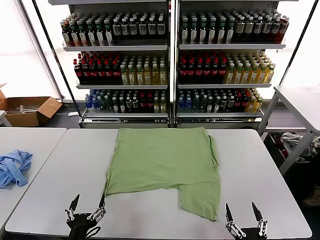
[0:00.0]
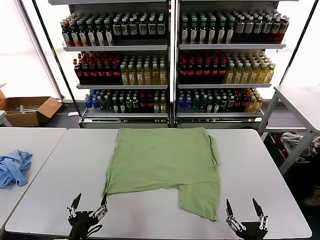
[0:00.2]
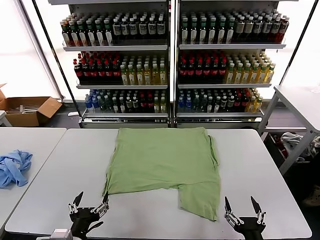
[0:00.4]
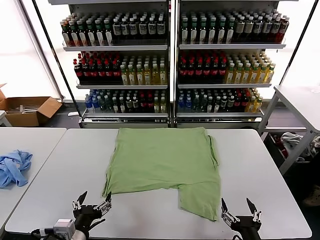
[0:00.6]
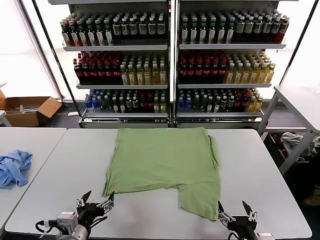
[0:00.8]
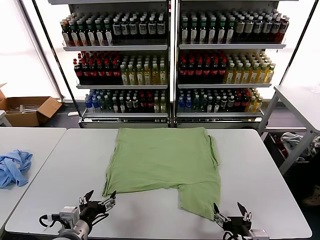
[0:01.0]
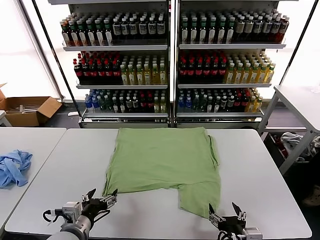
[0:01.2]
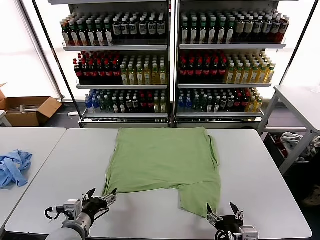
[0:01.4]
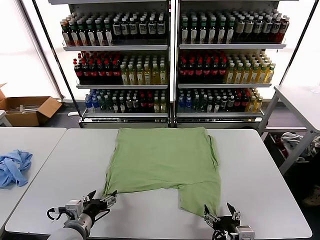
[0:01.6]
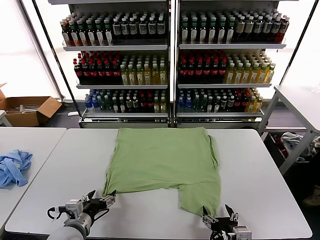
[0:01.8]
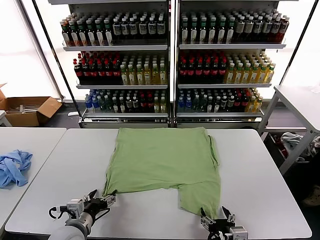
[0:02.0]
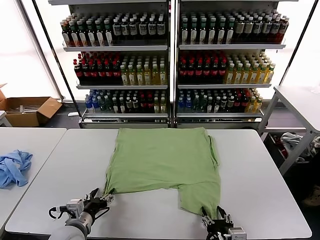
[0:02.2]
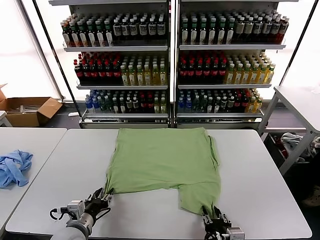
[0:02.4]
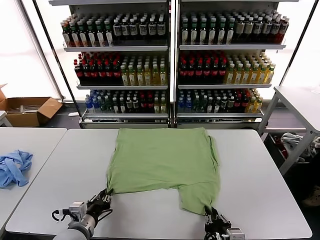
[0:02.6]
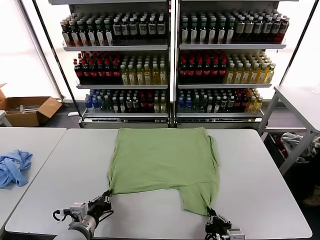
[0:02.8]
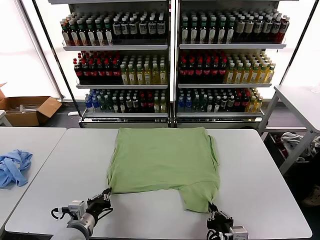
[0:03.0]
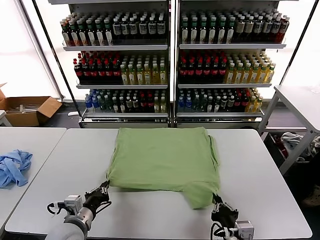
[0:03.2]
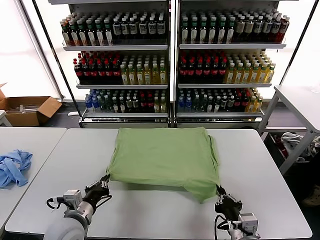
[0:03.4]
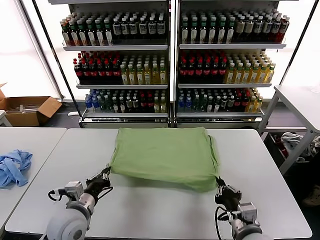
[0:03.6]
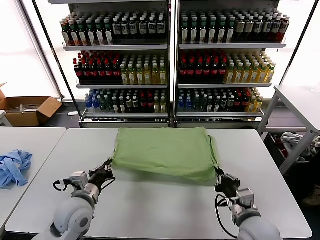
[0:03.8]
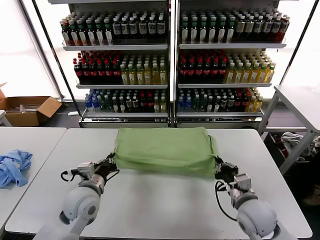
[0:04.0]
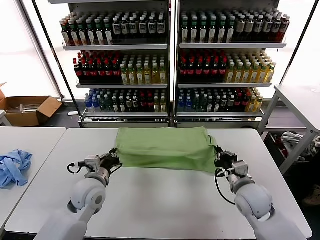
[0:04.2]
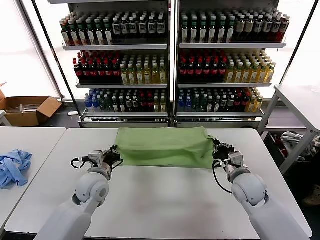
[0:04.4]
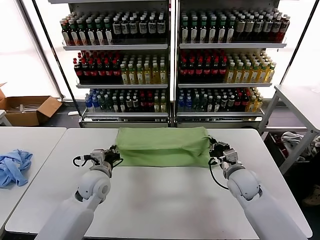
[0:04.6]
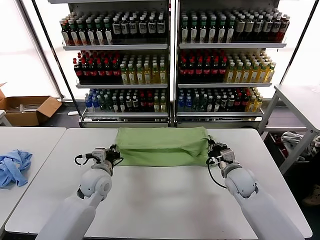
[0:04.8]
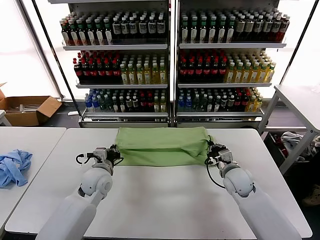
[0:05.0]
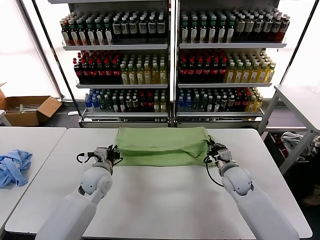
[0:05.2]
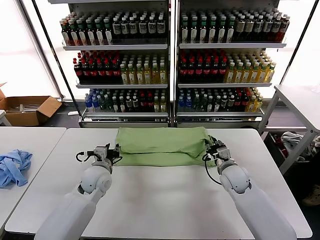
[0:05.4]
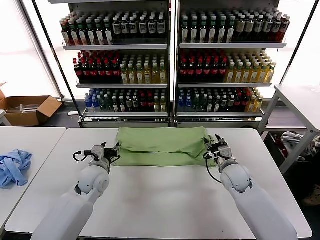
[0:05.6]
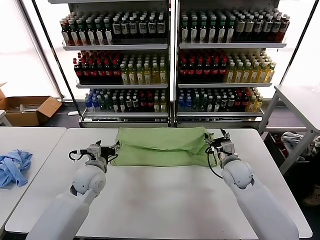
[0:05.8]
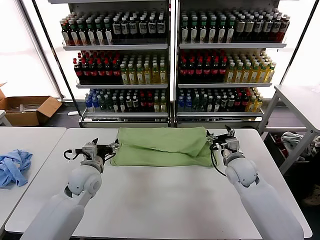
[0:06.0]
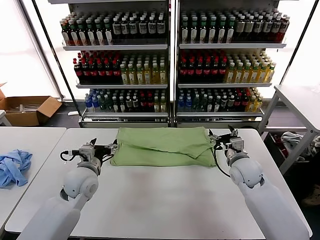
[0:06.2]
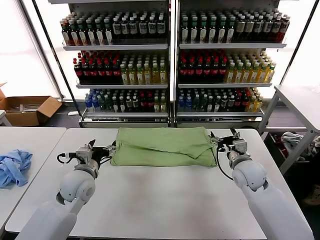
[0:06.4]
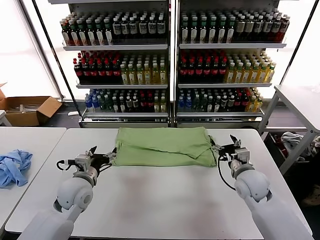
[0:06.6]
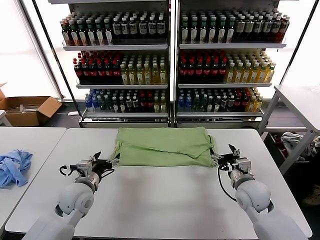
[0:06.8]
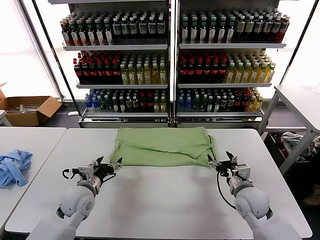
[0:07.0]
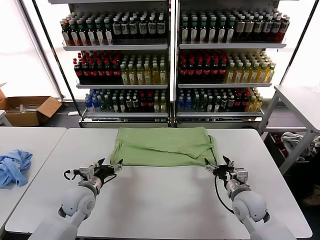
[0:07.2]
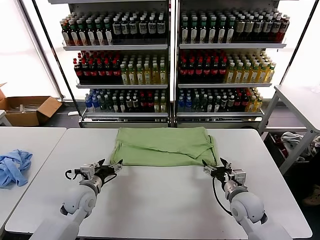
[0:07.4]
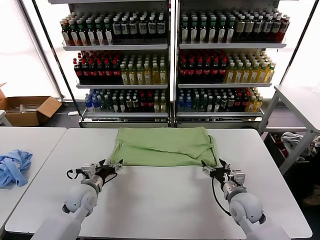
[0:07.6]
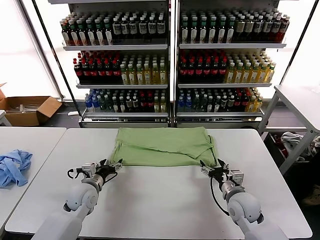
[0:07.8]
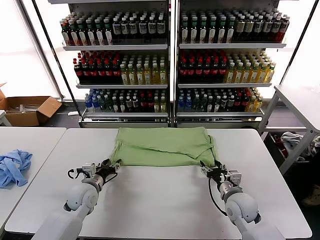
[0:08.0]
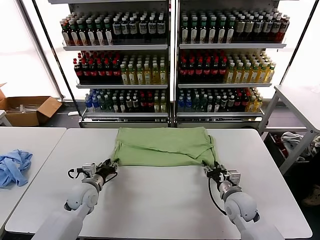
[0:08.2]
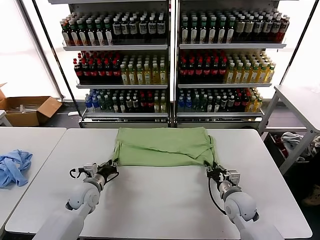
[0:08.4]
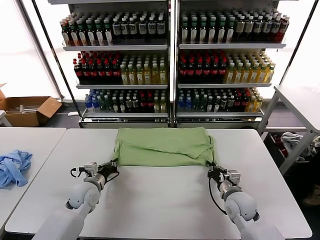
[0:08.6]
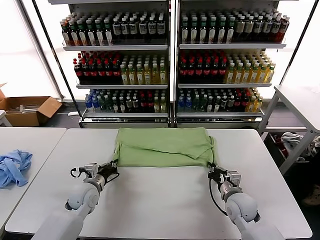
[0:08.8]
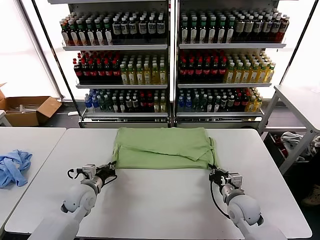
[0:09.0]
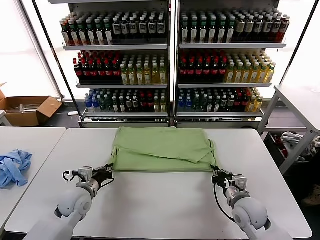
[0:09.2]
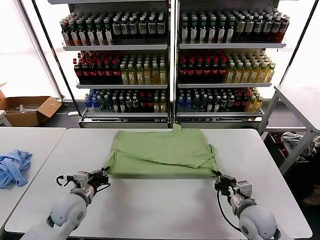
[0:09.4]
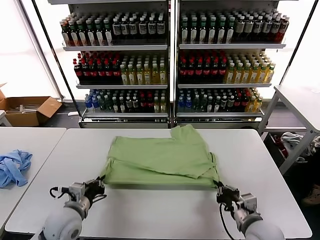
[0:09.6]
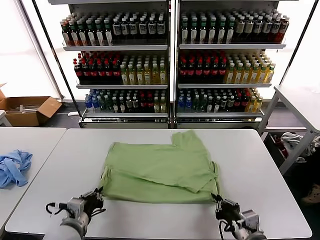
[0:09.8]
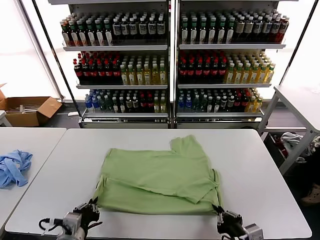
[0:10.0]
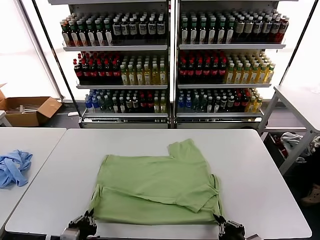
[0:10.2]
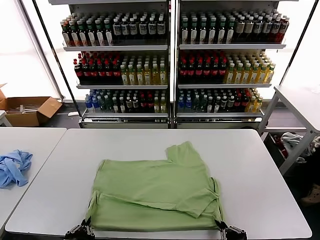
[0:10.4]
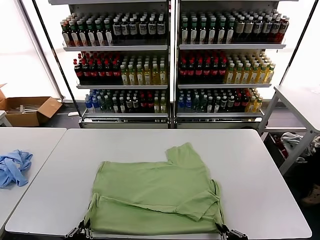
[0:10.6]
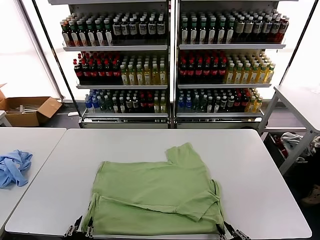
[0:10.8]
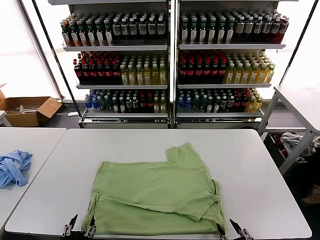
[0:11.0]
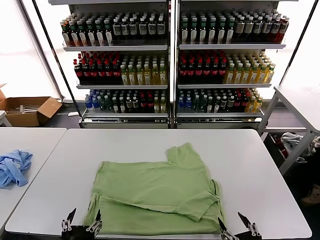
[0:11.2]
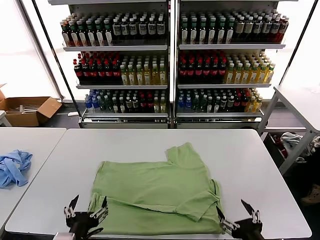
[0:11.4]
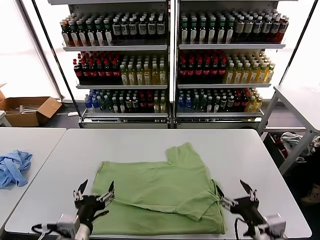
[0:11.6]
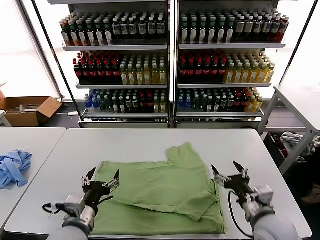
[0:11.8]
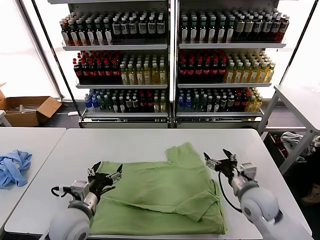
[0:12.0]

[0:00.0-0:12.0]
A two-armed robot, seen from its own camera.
Task of the whole recording: fold and organize the clothes.
Step, 0.0 to 2.8 s: use both grippers simultaneously to clamp the lower edge of the clothing fabric.
Step, 3.0 to 5.8 s: use both grippers to drag the lower edge of the fabric forward and fold it over the upper edge.
Step, 6.2 to 11.0 s: Drag the clothes downward with both gripper.
1.6 to 3.0 s: The right gripper closes, while the left gripper closes.
3.0 to 4.4 s: The right gripper shifts approximately 25 cm forward, while the left gripper goes approximately 15 cm forward.
4.4 to 6.0 s: The left gripper opens up; the right gripper opens its fingers.
6.0 to 7.6 s: The right gripper goes approximately 10 cm backward and downward; the left gripper goes approximately 10 cm downward.
7.6 to 9.0 s: The left gripper closes up. Meanwhile the right gripper closes its fingers.
9.0 to 10.4 s: The two grippers go approximately 25 cm backward.
10.4 to 12.0 s: The right gripper is displaced forward by approximately 25 cm, and opens; the left gripper moves forward, approximately 15 cm, and opens.

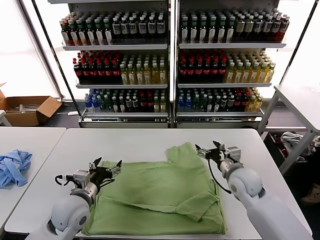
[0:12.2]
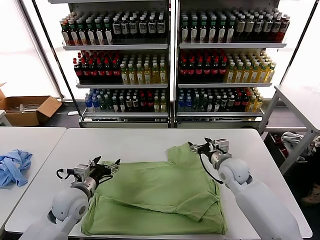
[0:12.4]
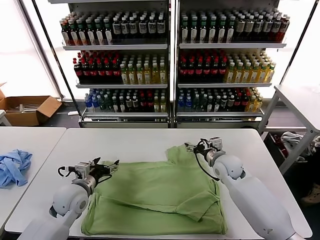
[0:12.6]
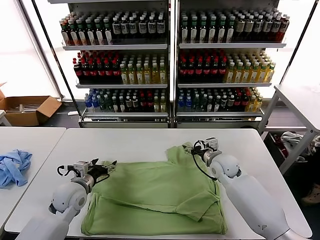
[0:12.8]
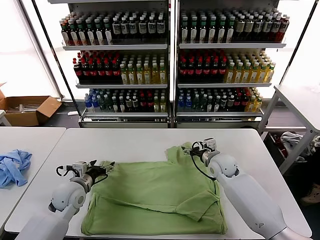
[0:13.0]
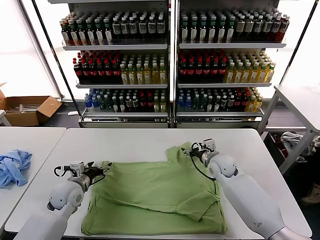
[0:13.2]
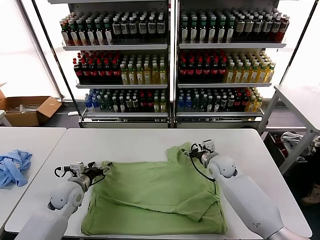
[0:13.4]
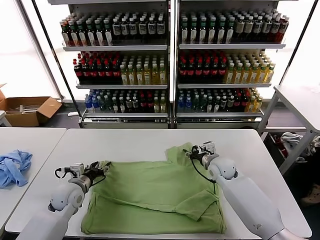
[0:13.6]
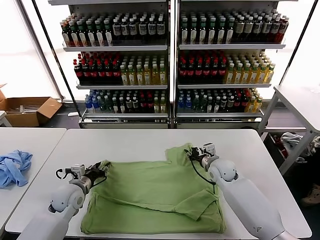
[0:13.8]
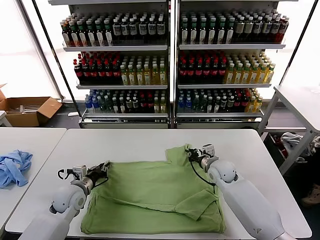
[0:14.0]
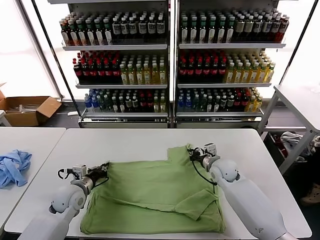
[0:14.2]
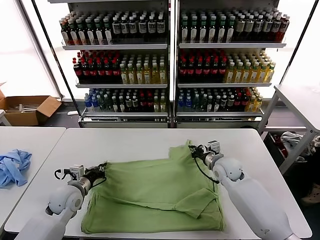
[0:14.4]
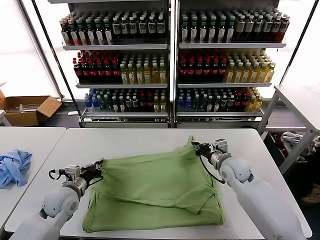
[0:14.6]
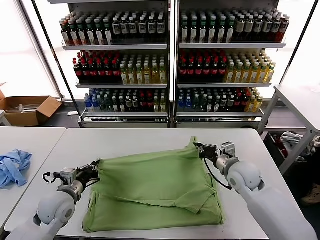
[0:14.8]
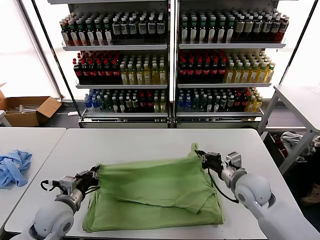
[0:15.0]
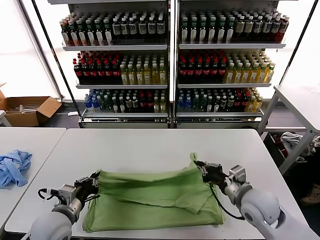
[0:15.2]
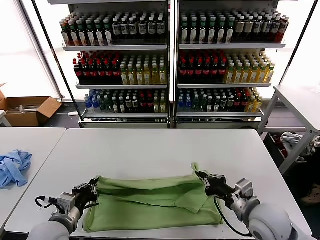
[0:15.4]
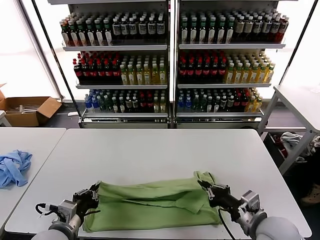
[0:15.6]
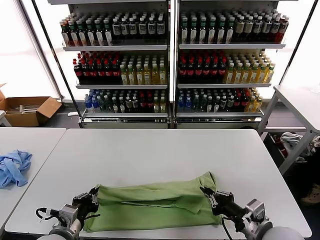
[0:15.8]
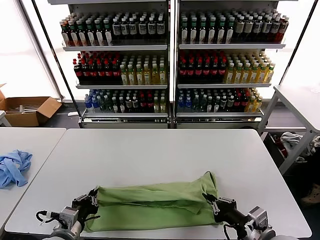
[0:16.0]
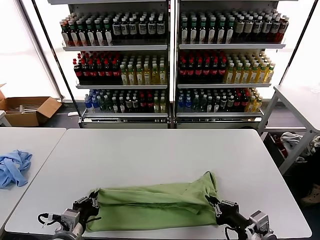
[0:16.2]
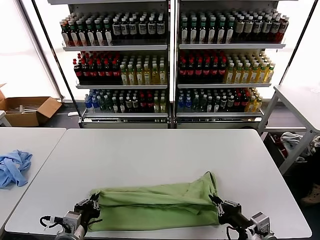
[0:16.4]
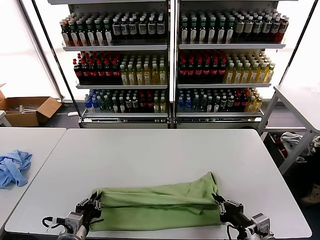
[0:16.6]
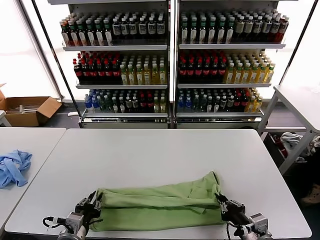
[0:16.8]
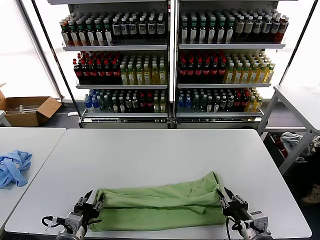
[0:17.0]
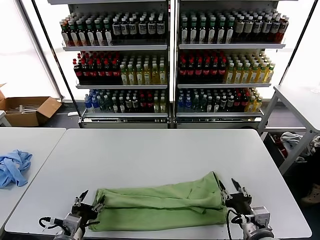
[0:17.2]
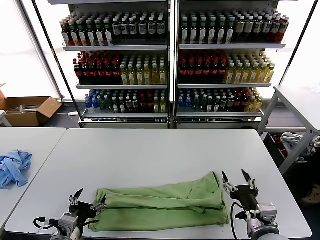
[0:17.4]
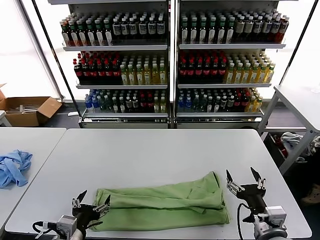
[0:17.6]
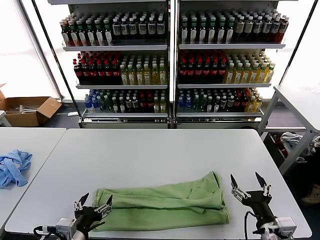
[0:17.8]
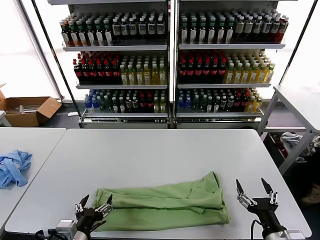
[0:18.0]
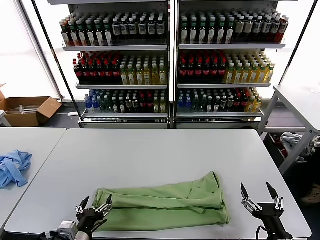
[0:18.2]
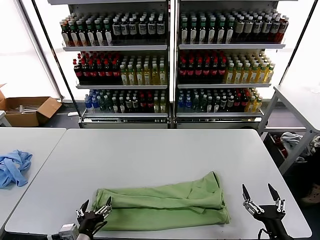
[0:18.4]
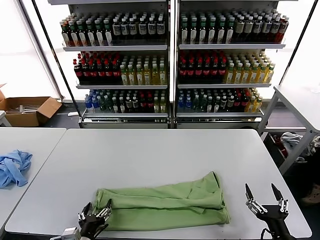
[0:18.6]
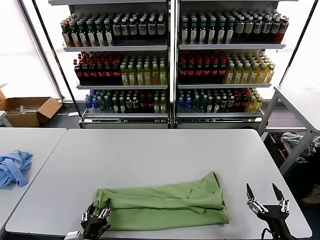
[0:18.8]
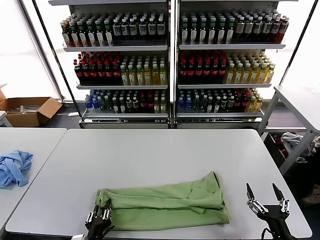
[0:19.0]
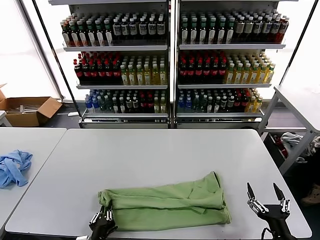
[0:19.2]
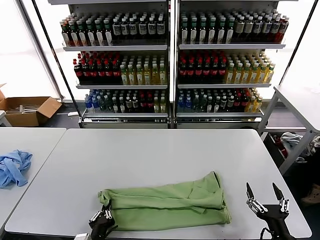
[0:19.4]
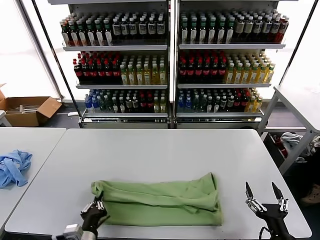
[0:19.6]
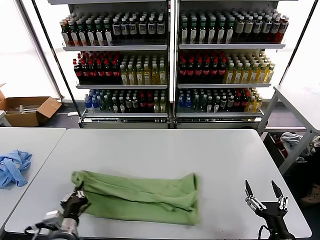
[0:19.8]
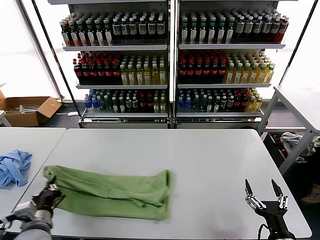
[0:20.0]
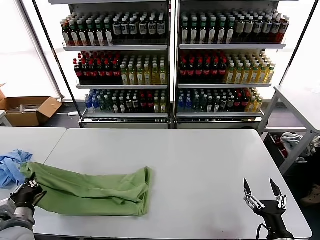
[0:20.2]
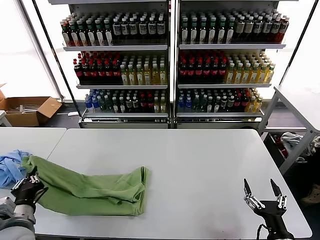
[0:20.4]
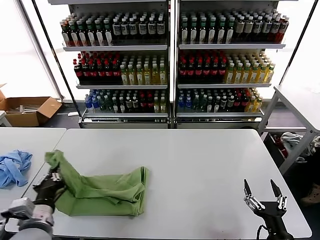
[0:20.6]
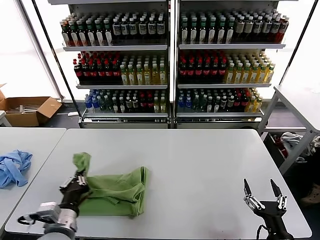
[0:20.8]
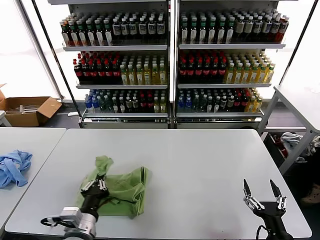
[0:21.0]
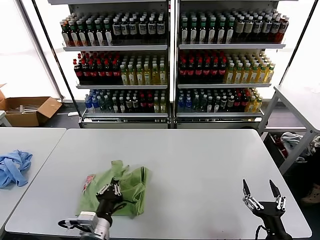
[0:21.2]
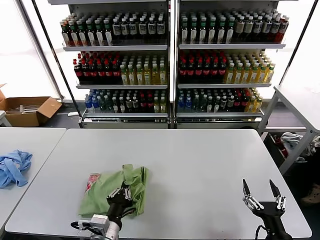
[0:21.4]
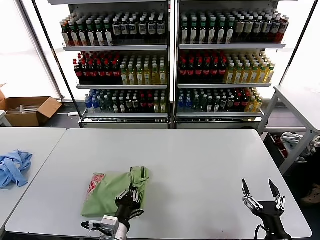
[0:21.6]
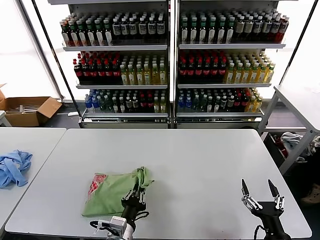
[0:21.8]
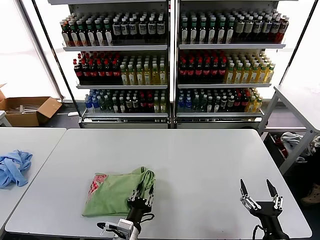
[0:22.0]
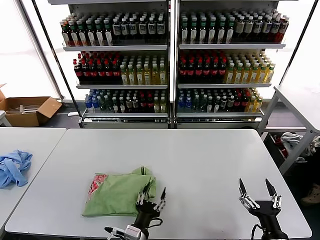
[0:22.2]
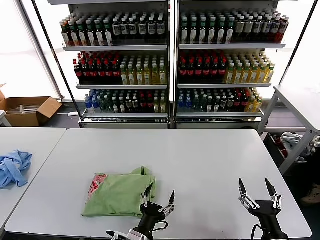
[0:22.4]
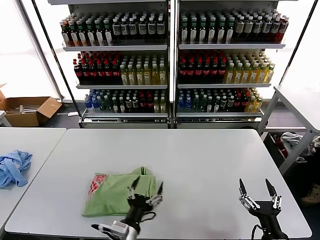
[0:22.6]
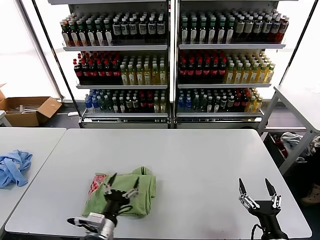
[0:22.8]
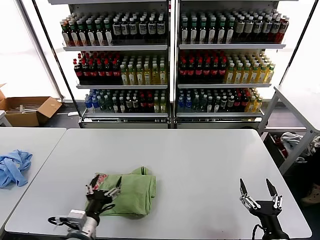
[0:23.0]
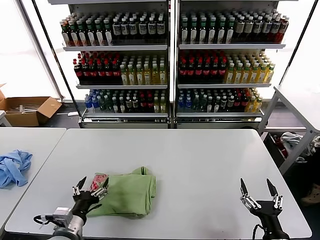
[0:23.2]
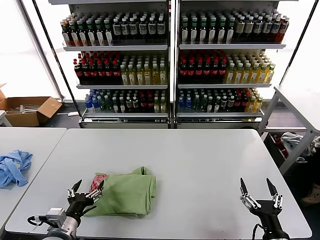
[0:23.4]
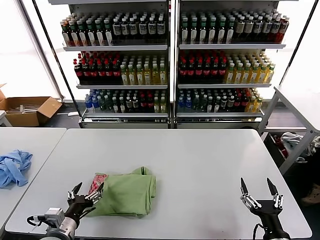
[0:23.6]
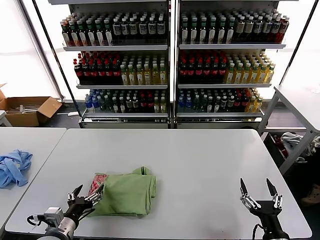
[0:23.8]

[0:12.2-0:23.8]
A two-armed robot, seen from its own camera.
Task of the whole recording: fold and organize the clothes.
Step, 12.2 to 14.0 s: use both grippers simultaneously to clamp the upper edge of the clothing fabric.
Step, 14.4 to 17.0 s: use both grippers to drag the upper edge of the fabric backward and fold it over the lower edge.
Step, 17.4 to 19.2 s: use the left gripper to clamp the left edge of the fabric.
Step, 19.4 to 22.0 s: use the left gripper to drag the left edge of the fabric to the left and folds it over the right edge.
12.2 to 13.6 s: The left gripper is displaced forward, to the left and downward by some 10 cm; the right gripper goes roughly 10 cm forward and downward, and closes.
13.6 to 15.0 s: The right gripper is displaced backward and upward by about 15 cm, and closes; the left gripper moves backward, roughly 10 cm, and closes.
15.0 to 16.6 s: The left gripper goes approximately 10 cm backward, while the right gripper goes some 15 cm backward.
16.6 to 18.0 s: The right gripper opens up. Meanwhile the left gripper opens up.
18.0 to 19.4 s: The left gripper moves downward, some 10 cm, and closes up.
19.4 to 21.0 s: The left gripper is displaced upward by roughly 10 cm, and travels to the left and back again, some 15 cm each way.
21.0 to 22.4 s: The left gripper moves to the right and downward, roughly 15 cm, and opens up.
22.4 to 23.8 s: The left gripper shifts some 20 cm to the left.
